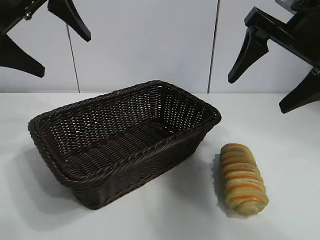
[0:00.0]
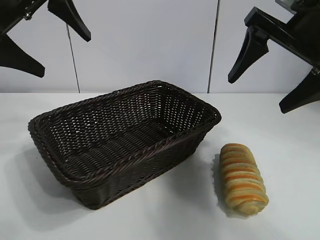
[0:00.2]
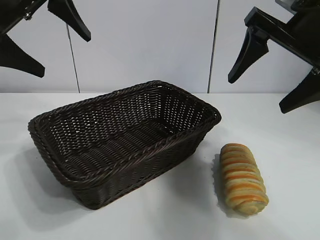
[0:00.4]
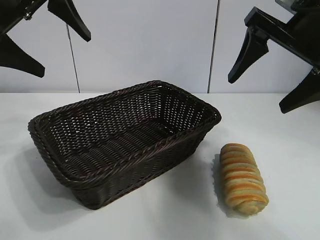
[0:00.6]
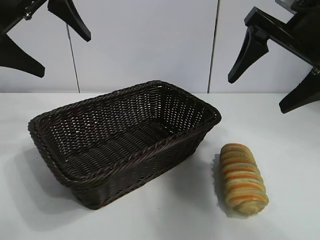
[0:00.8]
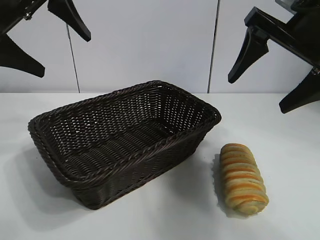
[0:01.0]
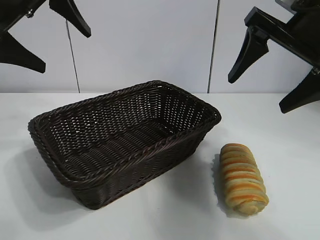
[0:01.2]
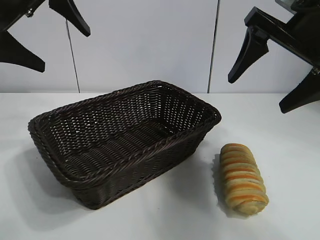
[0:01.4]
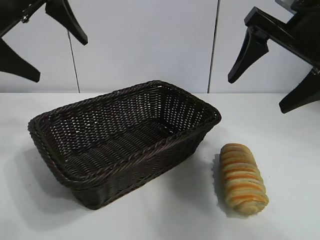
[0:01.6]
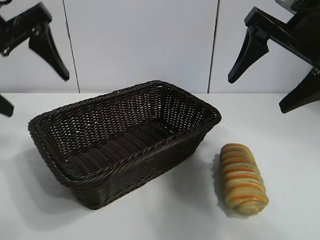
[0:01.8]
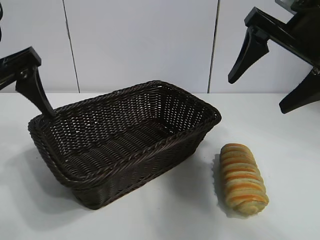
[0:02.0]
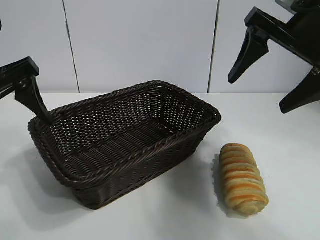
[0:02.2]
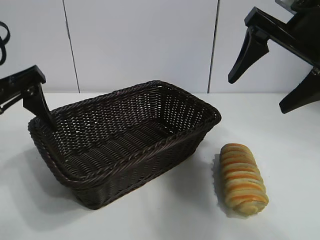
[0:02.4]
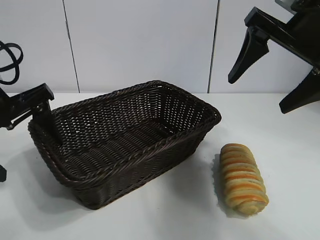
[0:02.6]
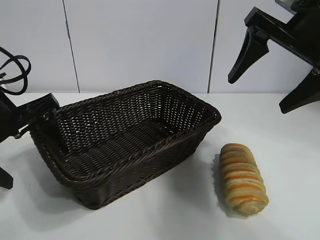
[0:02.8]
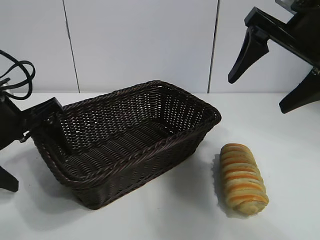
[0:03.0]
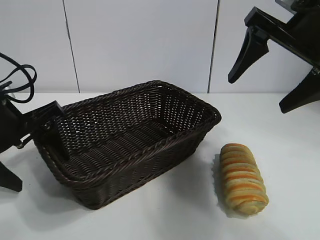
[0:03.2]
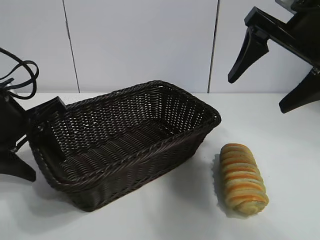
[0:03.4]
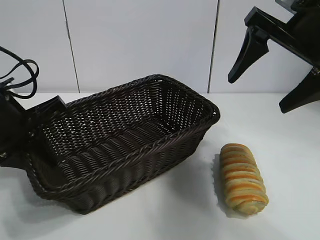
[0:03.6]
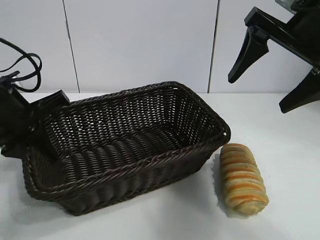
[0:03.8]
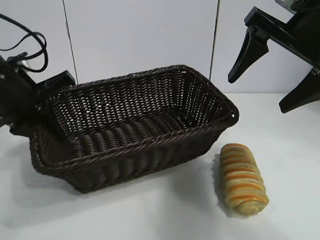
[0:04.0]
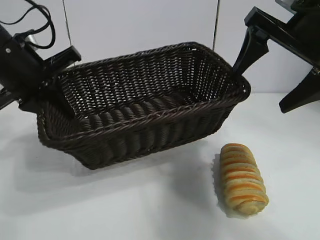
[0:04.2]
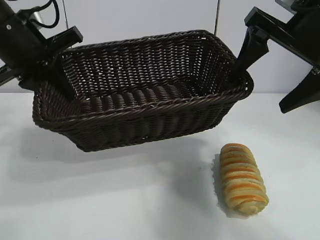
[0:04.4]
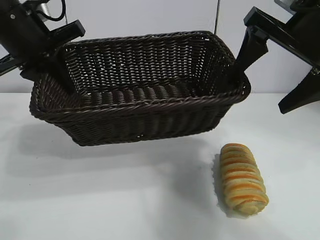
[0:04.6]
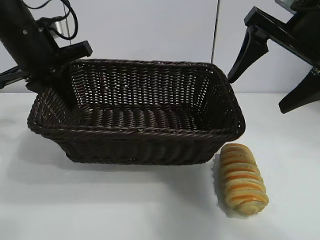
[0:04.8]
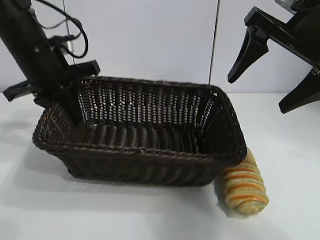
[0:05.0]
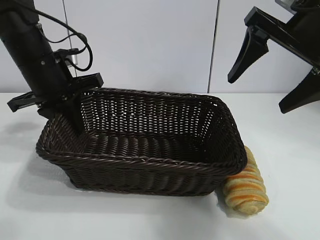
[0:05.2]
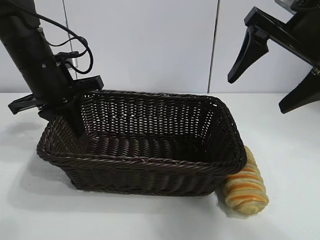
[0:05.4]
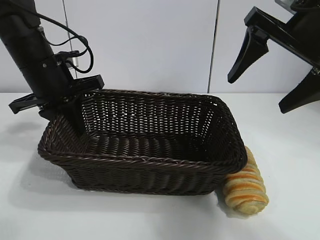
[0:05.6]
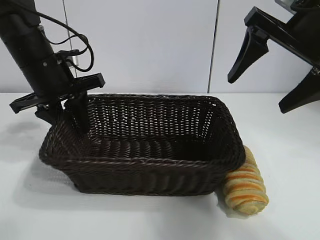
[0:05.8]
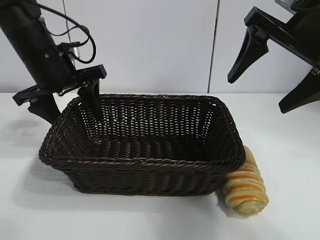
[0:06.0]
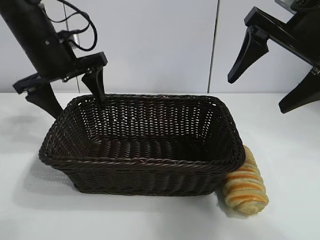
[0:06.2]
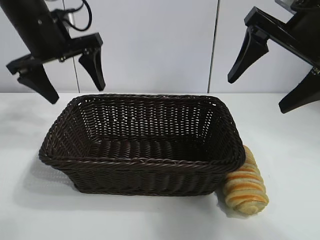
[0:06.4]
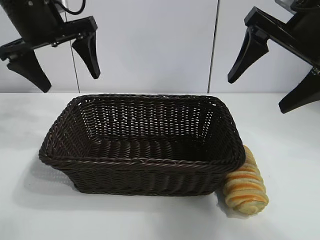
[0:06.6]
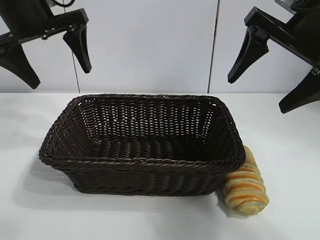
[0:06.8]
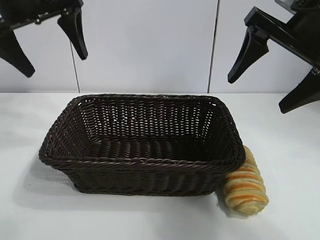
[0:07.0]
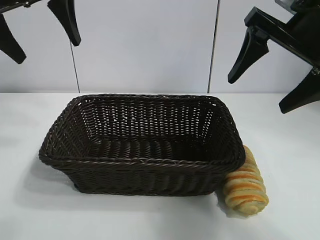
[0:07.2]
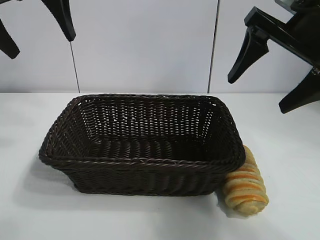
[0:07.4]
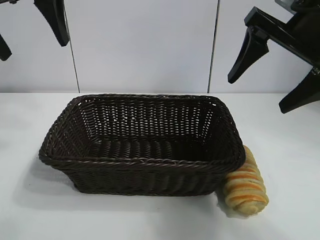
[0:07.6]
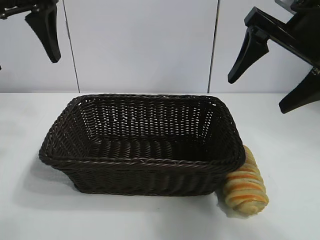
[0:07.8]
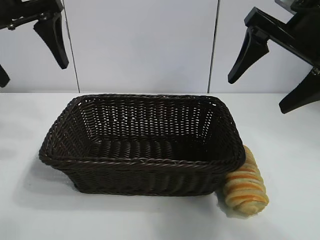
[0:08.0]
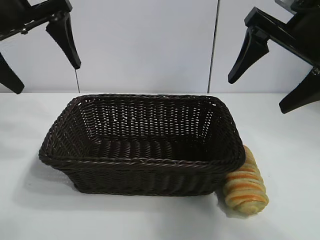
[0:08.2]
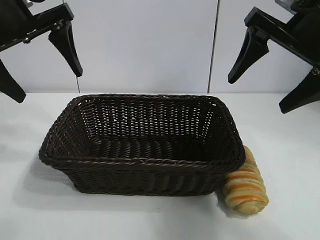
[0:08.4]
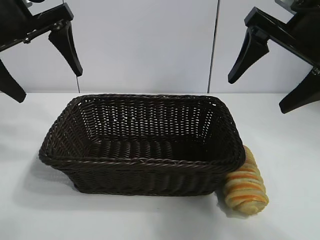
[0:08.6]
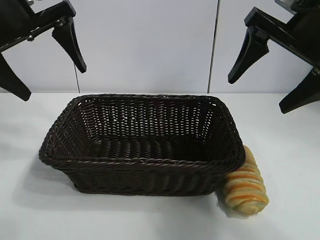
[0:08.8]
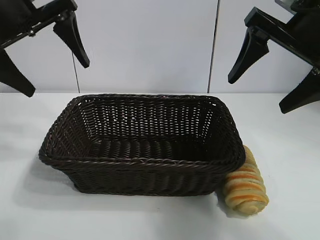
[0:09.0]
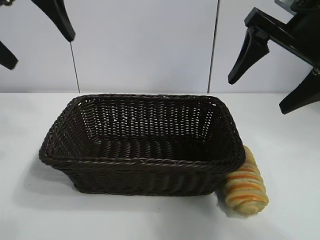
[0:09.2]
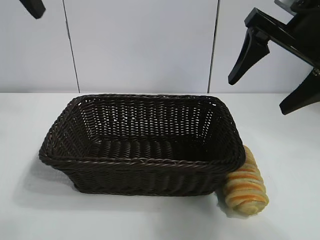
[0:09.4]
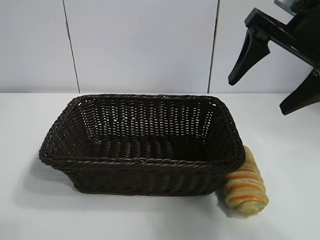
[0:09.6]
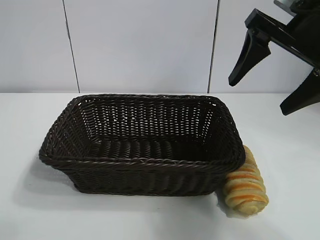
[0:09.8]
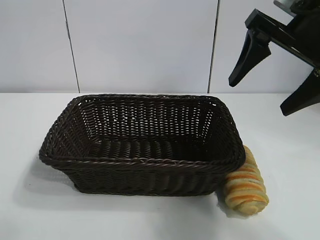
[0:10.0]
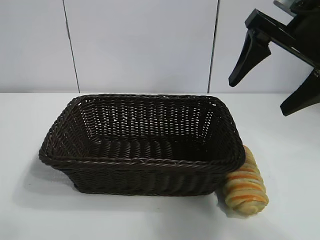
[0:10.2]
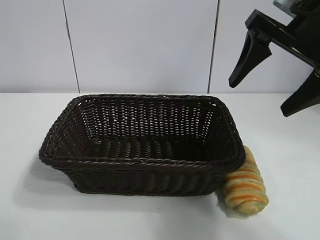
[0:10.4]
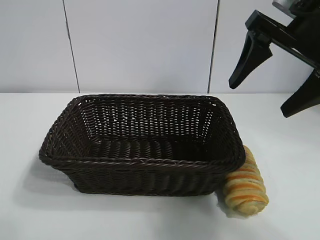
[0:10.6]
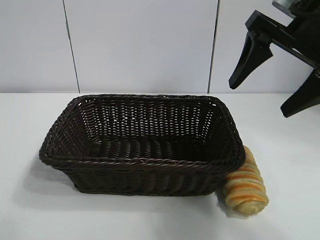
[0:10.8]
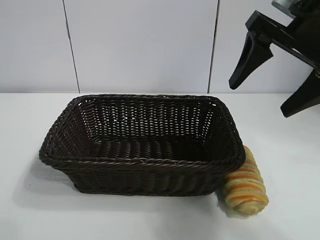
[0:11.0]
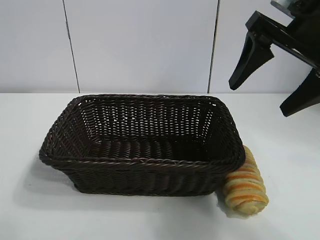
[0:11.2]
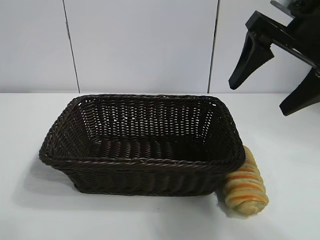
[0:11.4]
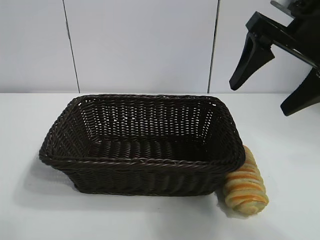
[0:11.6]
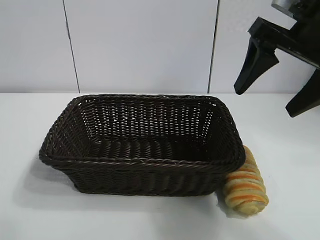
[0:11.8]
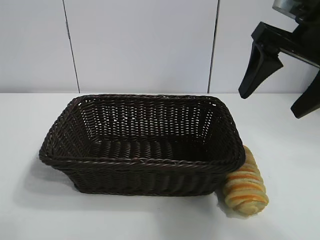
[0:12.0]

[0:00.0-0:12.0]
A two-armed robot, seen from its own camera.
Task of the whole recording: pick up the long bread and put it into the basket.
Step, 0:01.2 to 0:03.6: Grasp the basket with the left gripper.
Step, 0:03.8 to 0:06.0: Place the basket in the center of the table with the left gripper.

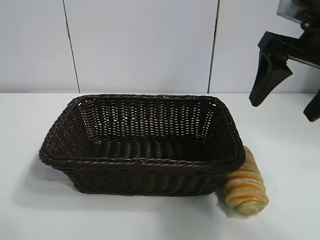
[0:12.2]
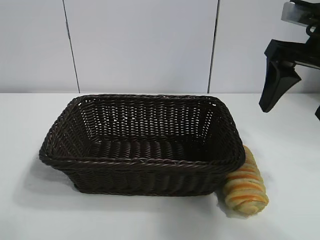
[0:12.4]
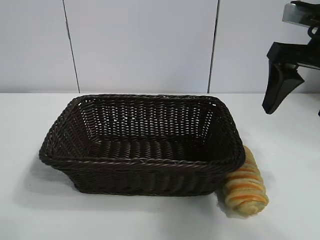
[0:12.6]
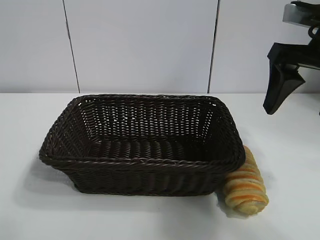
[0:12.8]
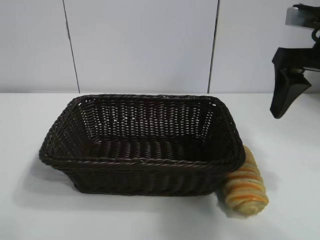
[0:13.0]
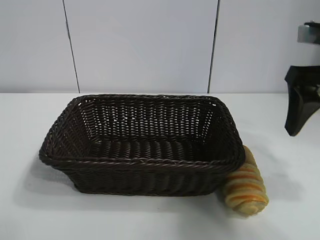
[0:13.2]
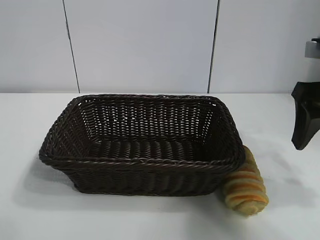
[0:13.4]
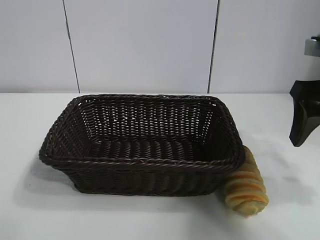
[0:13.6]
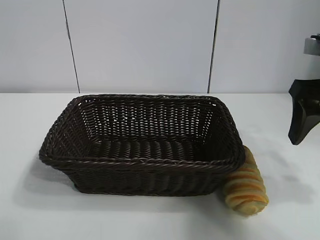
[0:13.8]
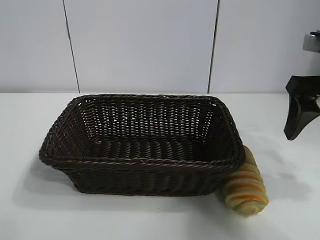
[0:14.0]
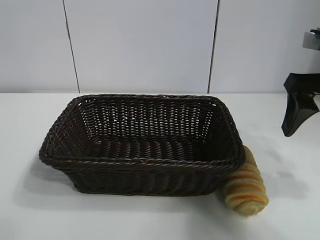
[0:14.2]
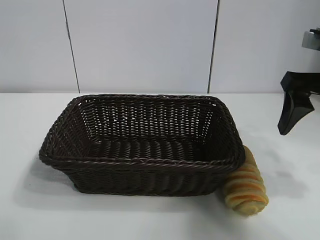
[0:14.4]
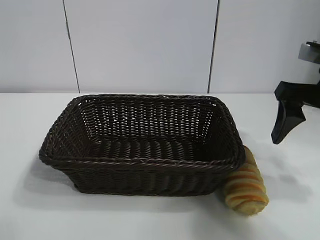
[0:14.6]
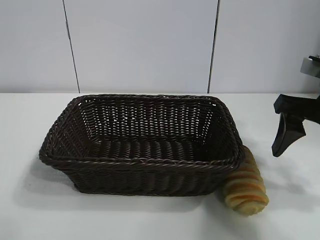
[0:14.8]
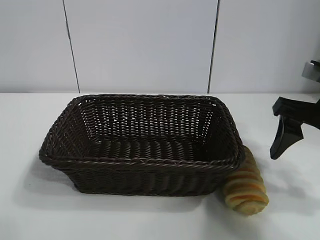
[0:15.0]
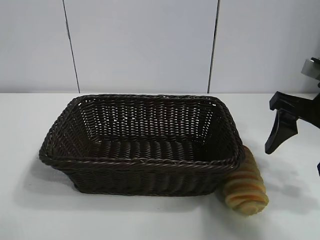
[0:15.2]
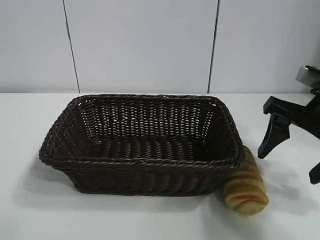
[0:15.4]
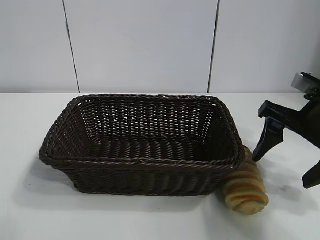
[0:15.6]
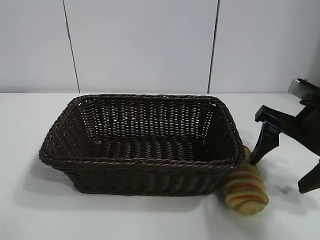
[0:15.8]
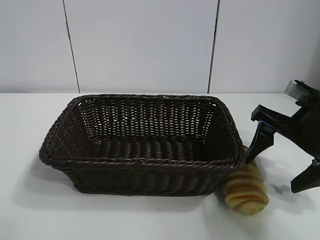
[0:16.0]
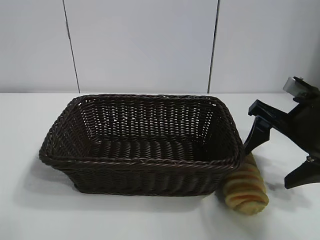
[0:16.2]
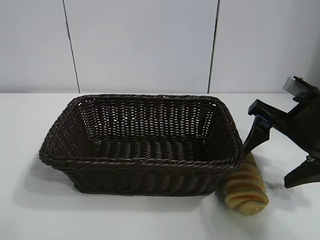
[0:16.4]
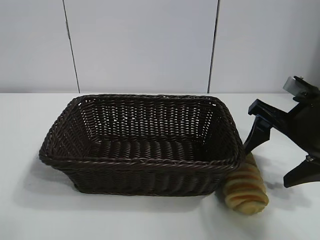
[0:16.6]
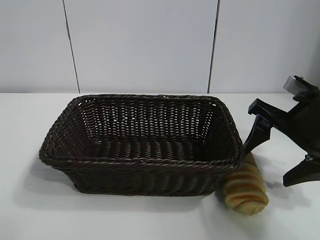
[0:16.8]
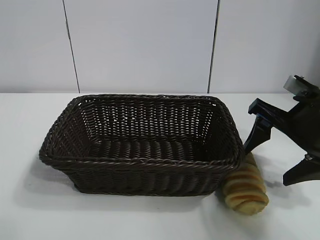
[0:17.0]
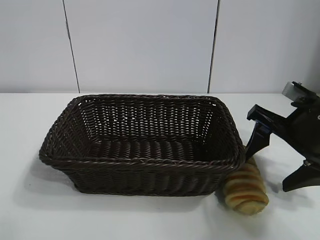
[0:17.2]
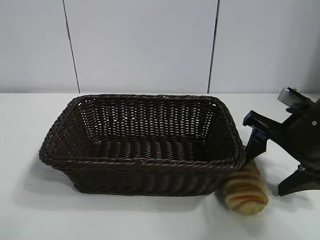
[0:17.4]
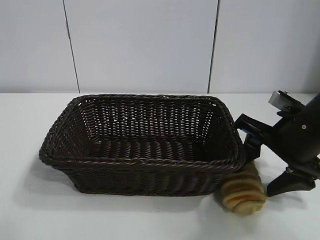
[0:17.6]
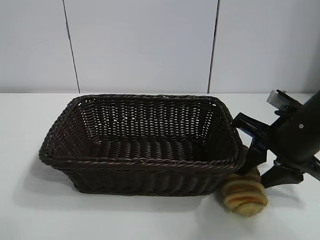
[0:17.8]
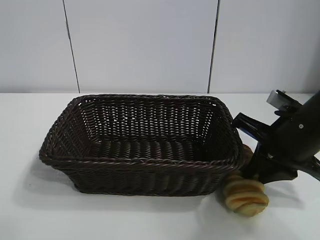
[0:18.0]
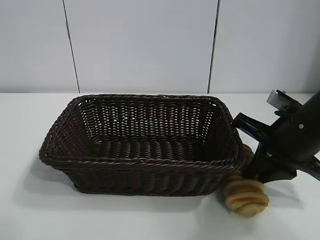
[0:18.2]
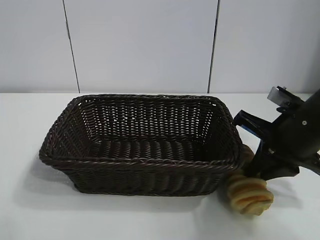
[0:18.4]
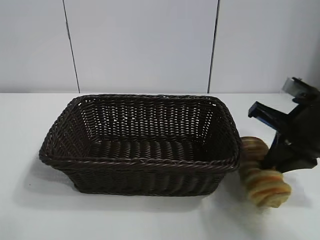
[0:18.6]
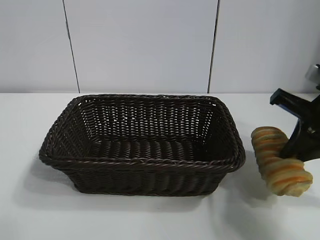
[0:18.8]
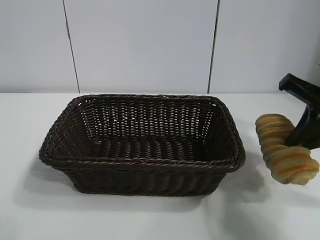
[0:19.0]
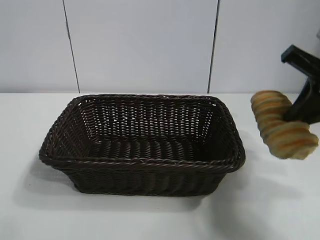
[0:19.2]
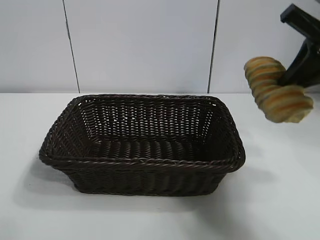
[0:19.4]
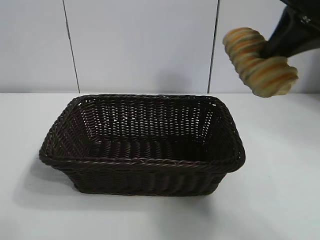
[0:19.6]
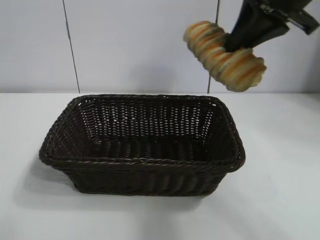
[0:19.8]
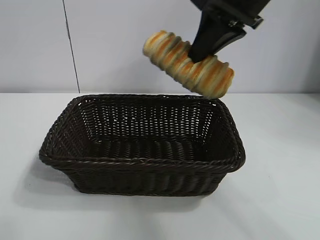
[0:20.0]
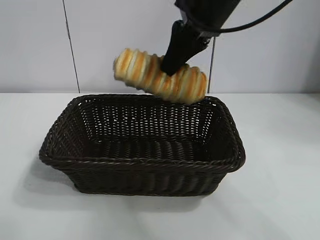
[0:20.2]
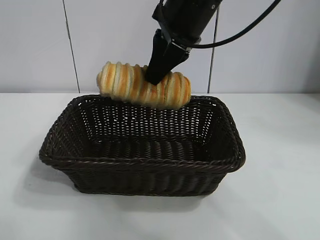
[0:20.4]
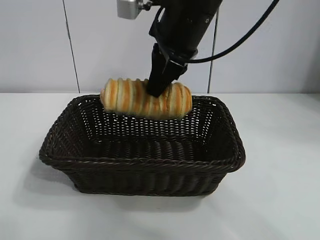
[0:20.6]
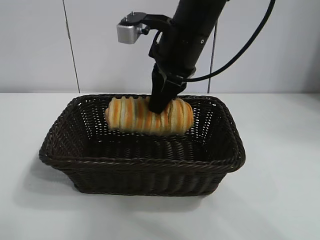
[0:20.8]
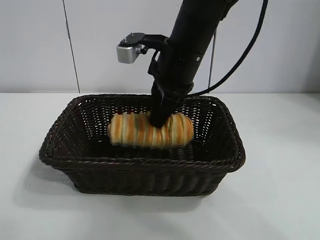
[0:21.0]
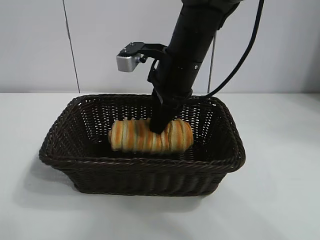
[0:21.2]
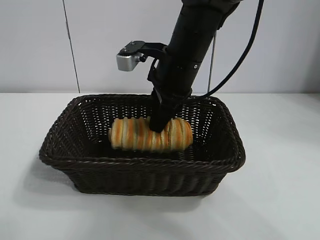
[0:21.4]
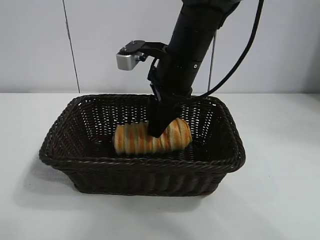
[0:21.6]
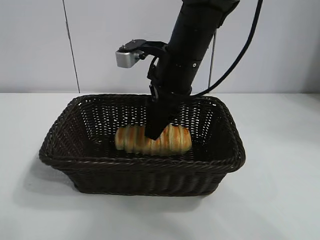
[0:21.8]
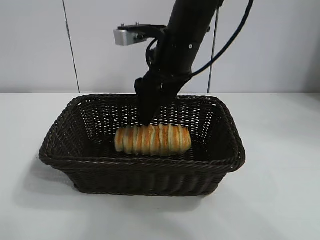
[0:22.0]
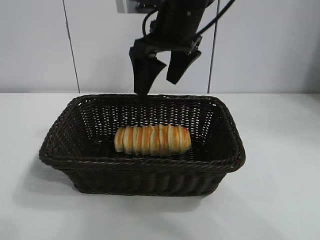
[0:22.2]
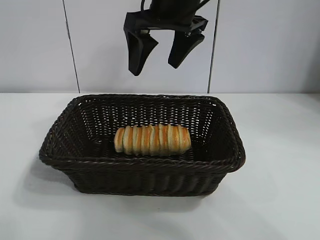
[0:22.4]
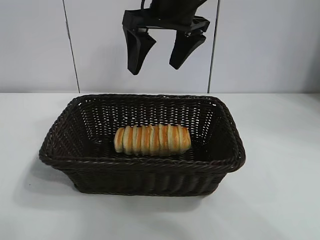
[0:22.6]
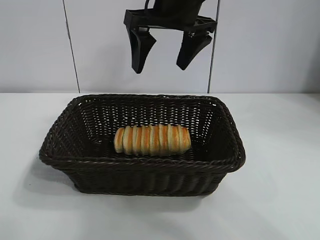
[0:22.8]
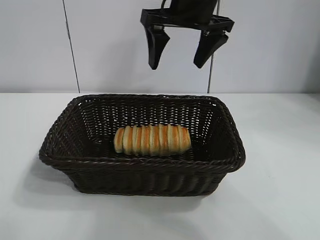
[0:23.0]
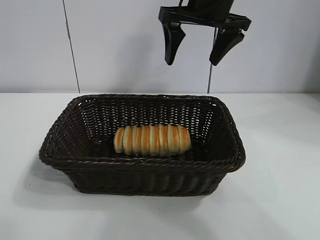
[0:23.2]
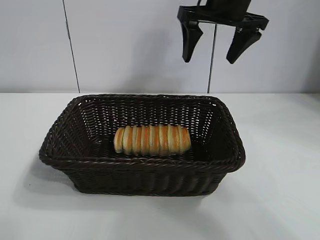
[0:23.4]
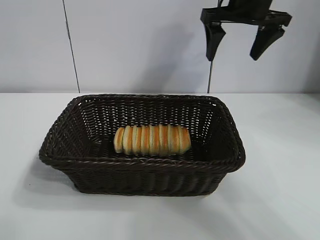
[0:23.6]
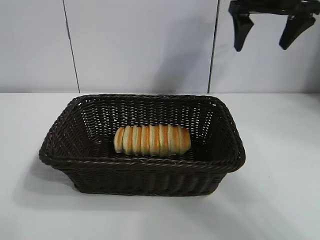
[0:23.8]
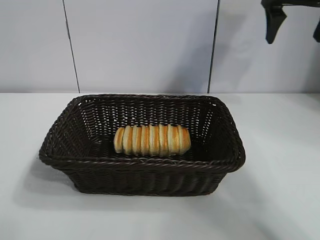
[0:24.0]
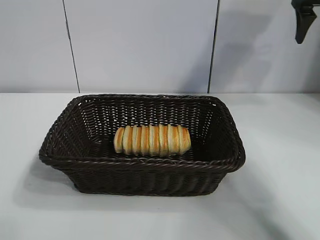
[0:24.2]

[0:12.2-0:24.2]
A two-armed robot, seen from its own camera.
Task of the whole recording: pick up the long bread and put it into the basket.
Step, 0:12.2 to 0:18.2: Grasp the long bread with right gripper.
Step, 0:18.4 to 0:21.8: Place the long bread in the basket with right gripper.
